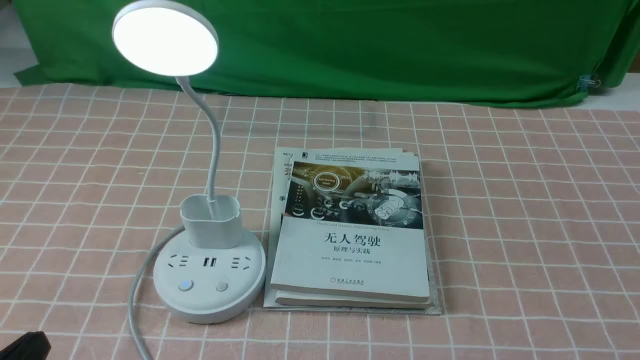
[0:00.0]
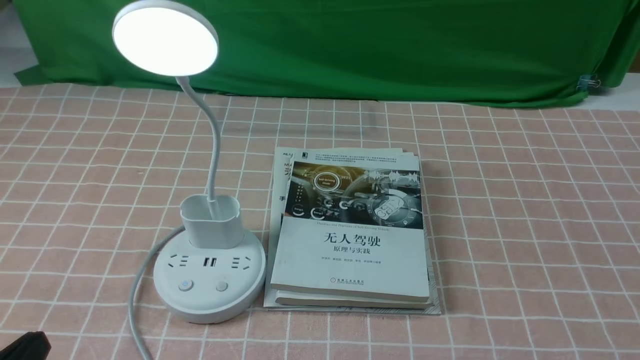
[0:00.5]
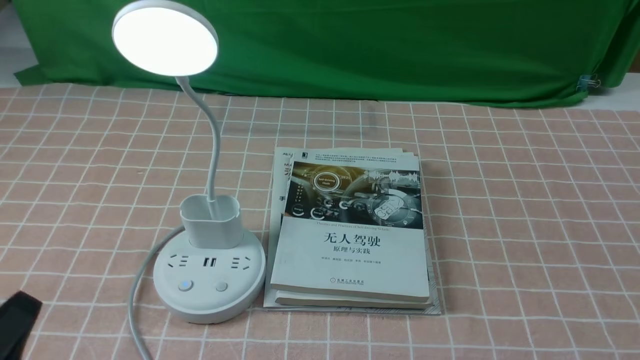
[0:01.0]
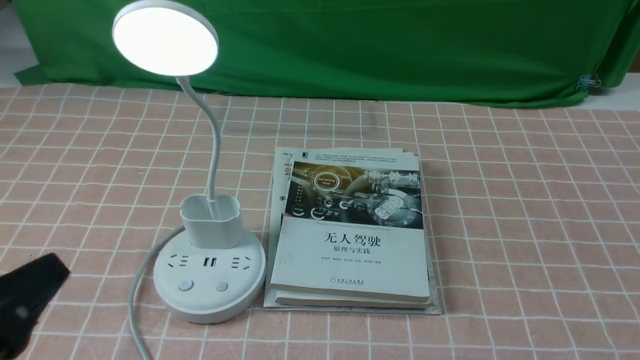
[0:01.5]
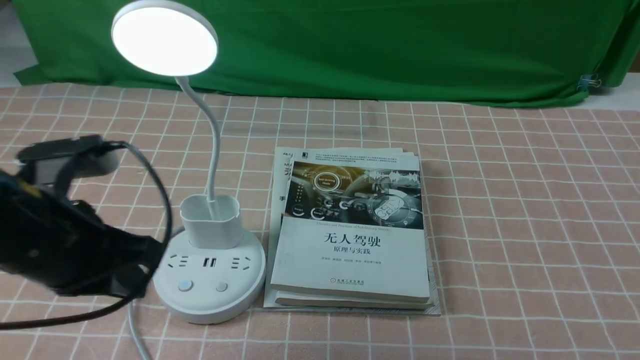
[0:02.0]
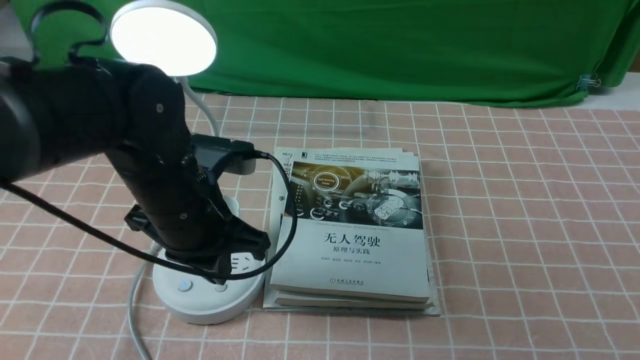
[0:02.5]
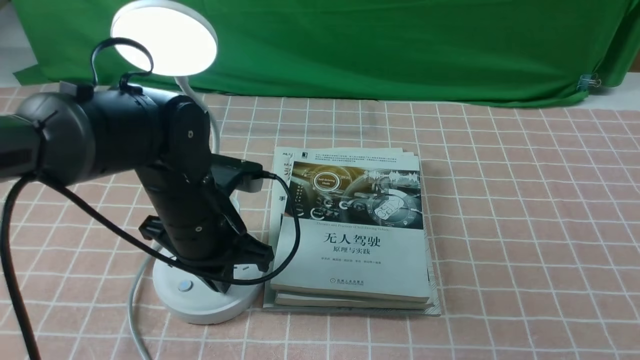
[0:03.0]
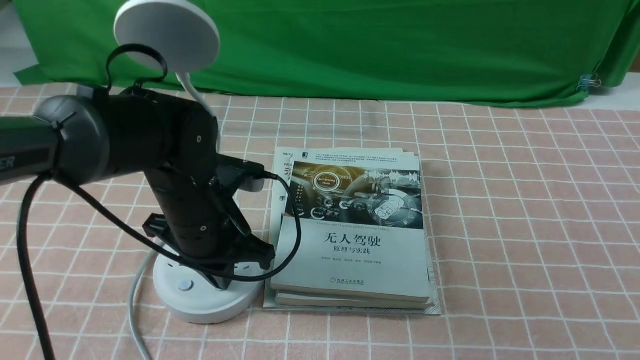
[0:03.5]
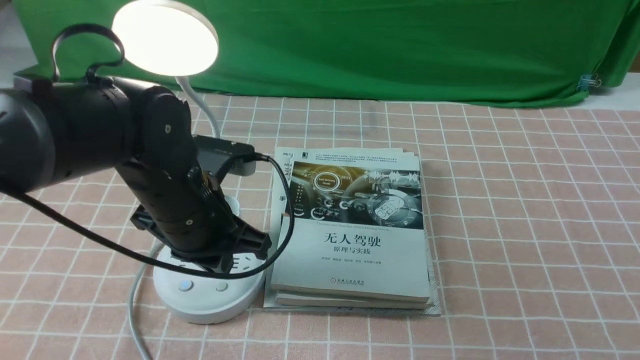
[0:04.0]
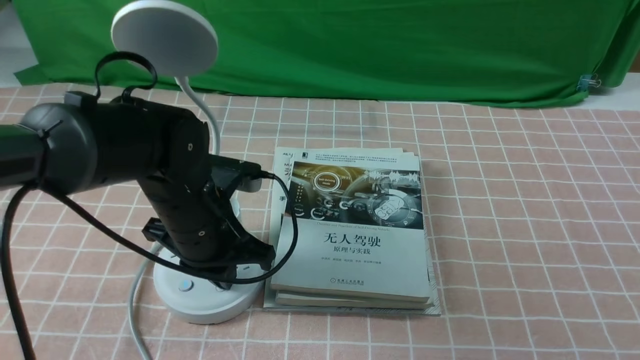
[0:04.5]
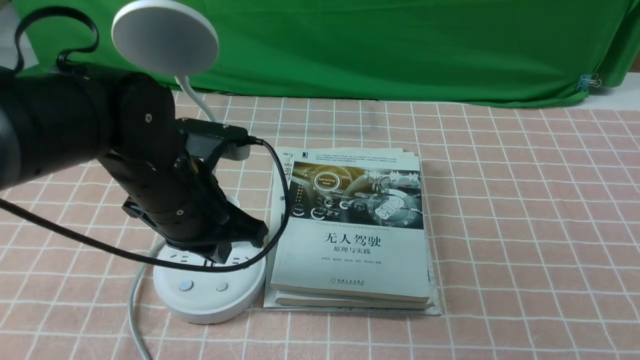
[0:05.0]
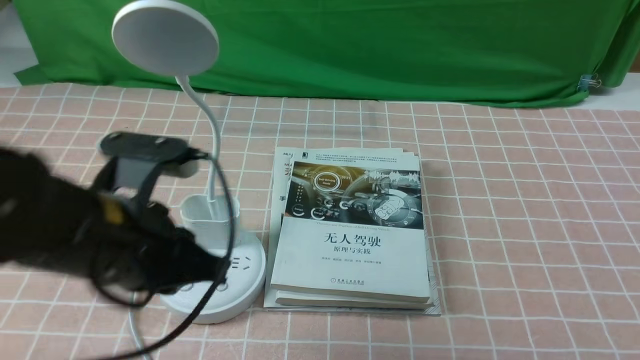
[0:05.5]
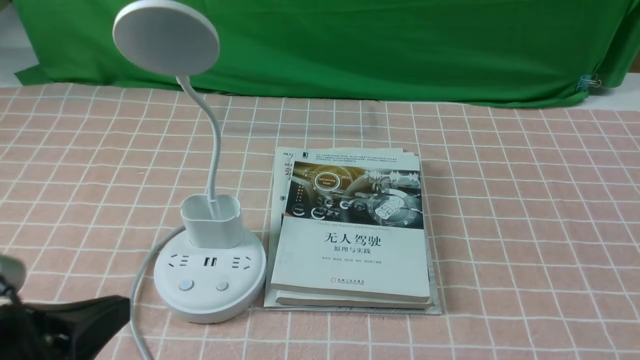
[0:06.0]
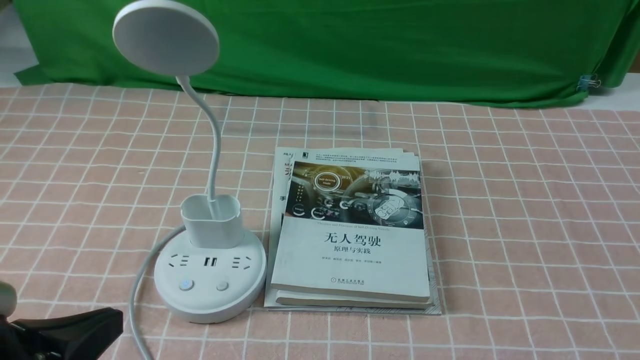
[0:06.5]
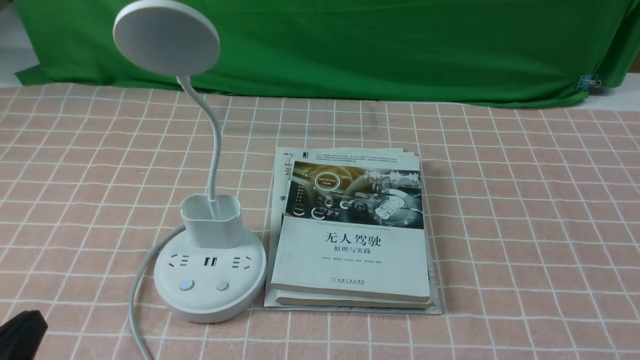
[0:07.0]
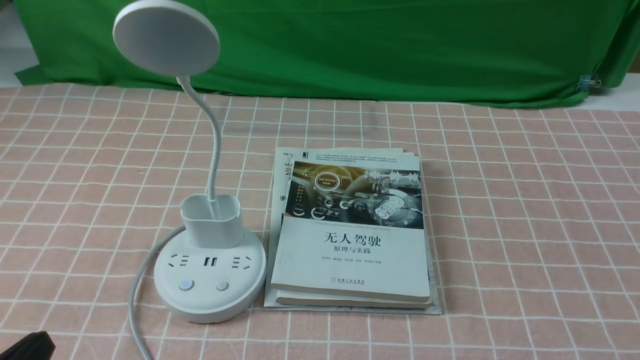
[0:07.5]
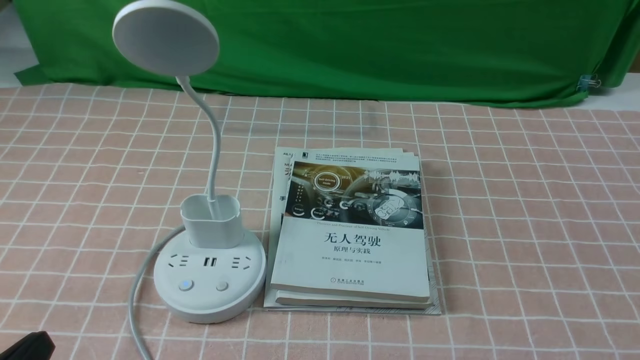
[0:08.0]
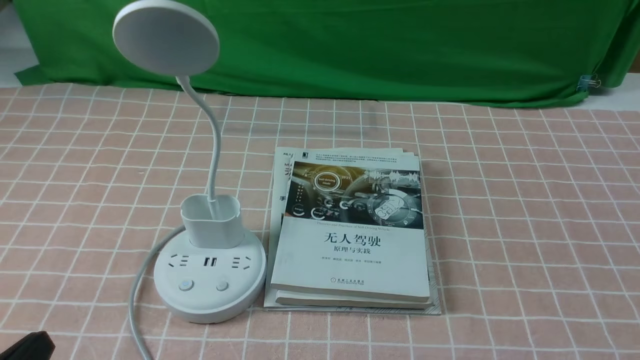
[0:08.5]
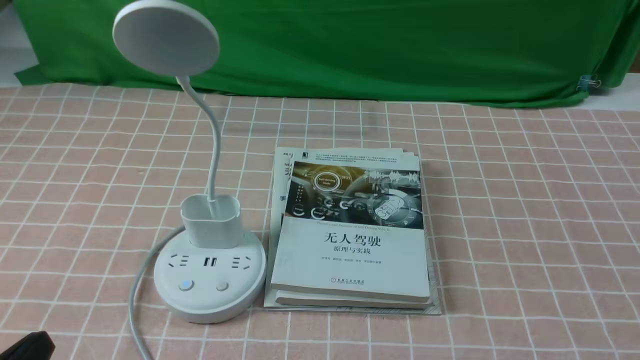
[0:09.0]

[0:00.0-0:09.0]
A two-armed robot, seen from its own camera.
Task of the whole recording: turn off the table lamp on the pink coffee tablecloth by hand.
Step, 0:00.0 to 0:04.5: use the left arm to press the button switch on the lamp holder.
0:02.0 to 0:04.5: The left gripper goes about 15 cm forward, downward and to the right, and closes.
0:04.5 to 0:07.0: The left gripper moves backward and to the left, about 25 cm.
